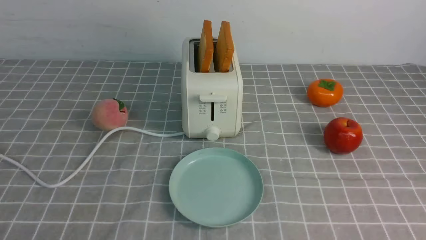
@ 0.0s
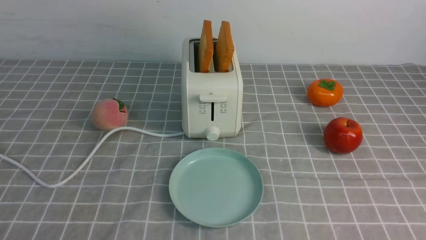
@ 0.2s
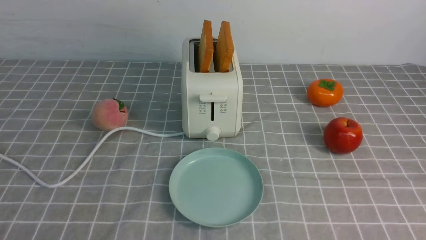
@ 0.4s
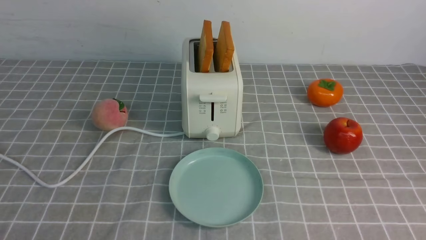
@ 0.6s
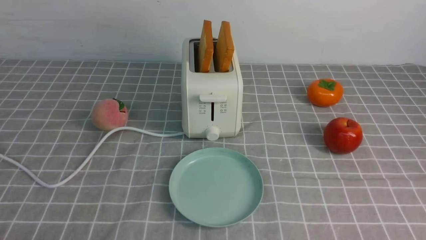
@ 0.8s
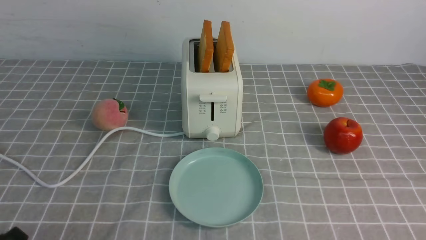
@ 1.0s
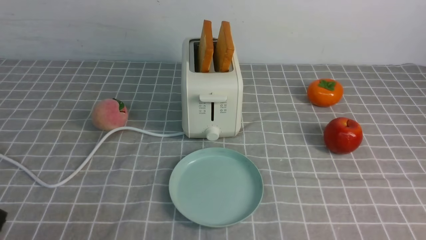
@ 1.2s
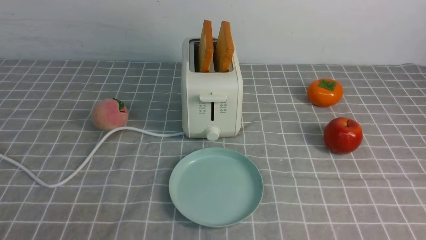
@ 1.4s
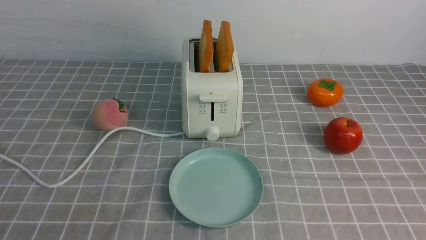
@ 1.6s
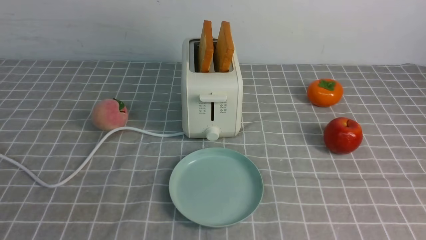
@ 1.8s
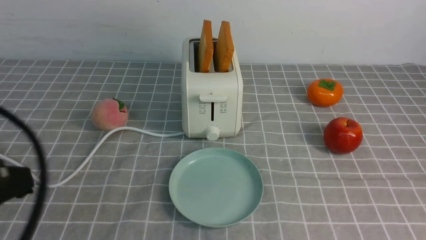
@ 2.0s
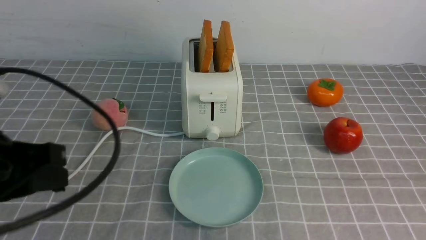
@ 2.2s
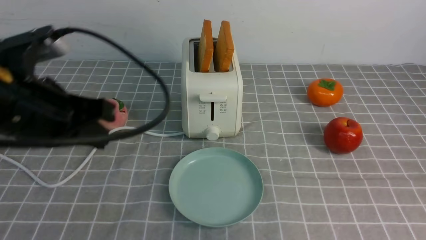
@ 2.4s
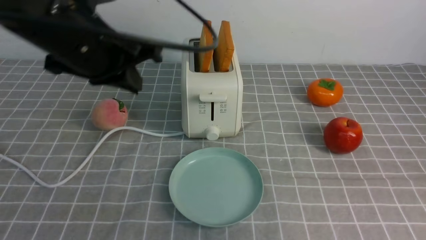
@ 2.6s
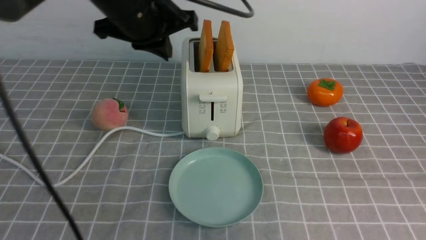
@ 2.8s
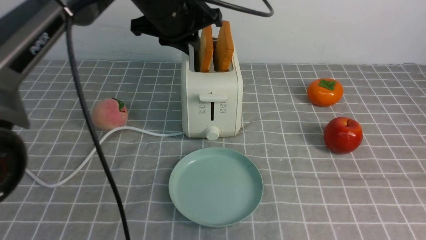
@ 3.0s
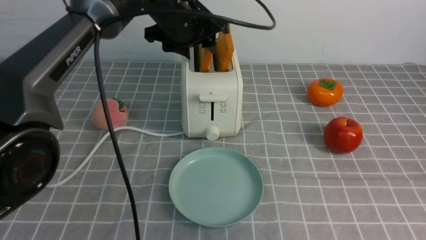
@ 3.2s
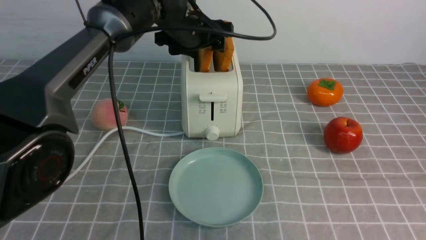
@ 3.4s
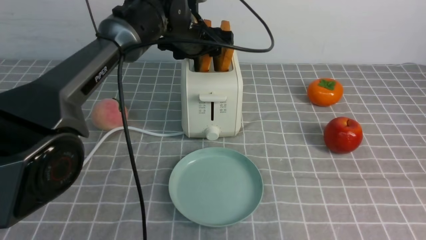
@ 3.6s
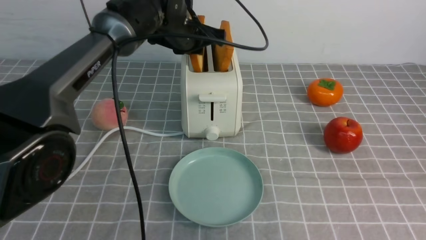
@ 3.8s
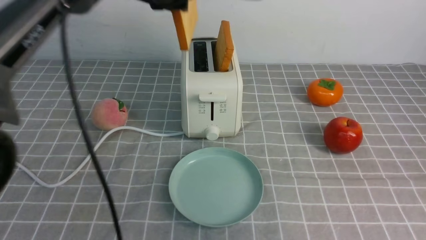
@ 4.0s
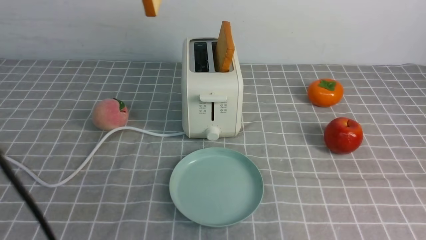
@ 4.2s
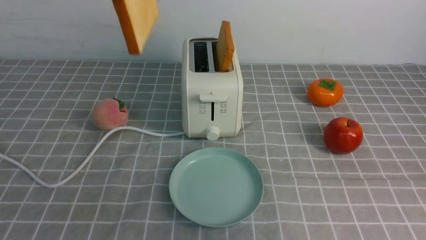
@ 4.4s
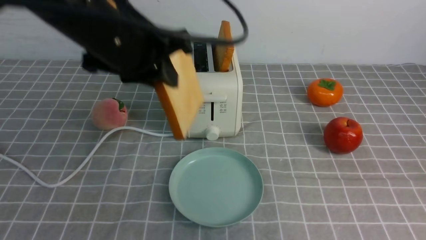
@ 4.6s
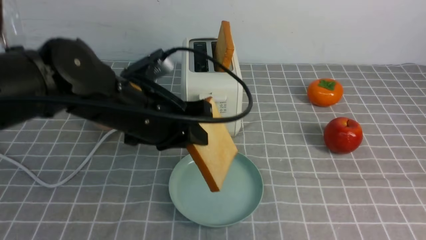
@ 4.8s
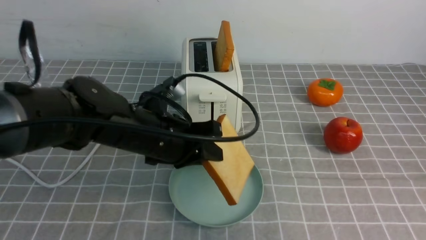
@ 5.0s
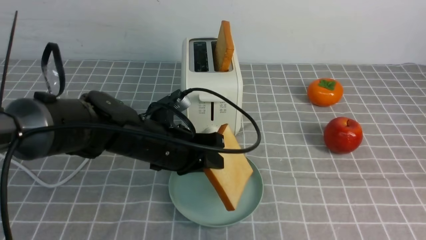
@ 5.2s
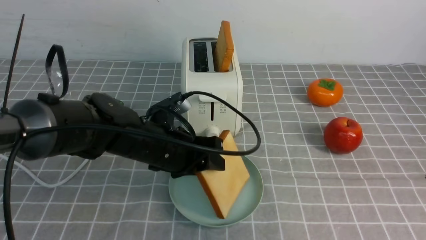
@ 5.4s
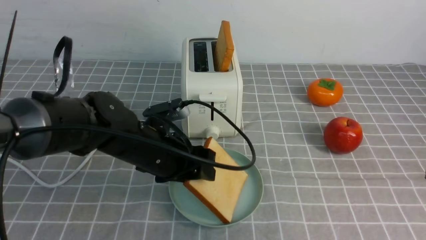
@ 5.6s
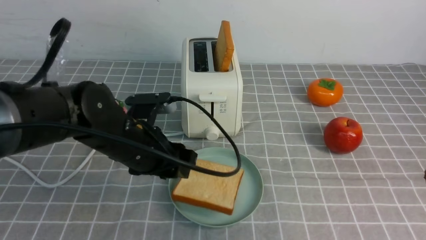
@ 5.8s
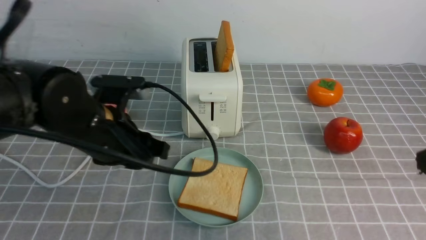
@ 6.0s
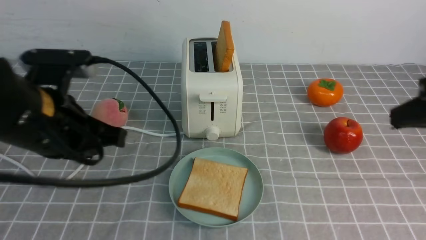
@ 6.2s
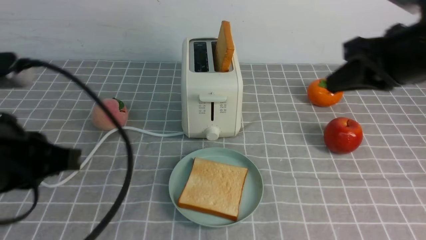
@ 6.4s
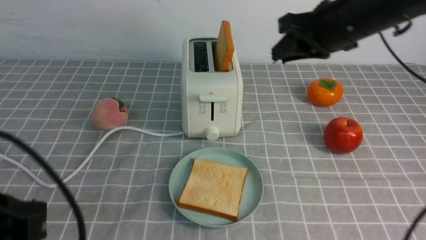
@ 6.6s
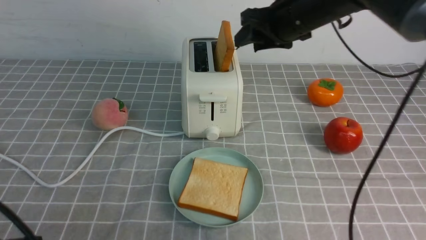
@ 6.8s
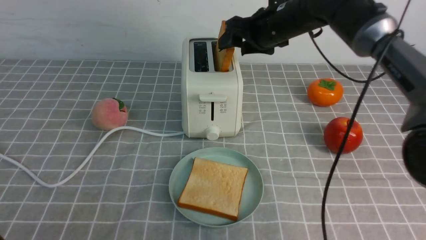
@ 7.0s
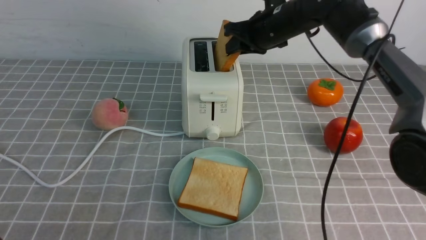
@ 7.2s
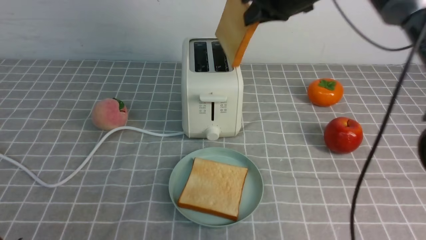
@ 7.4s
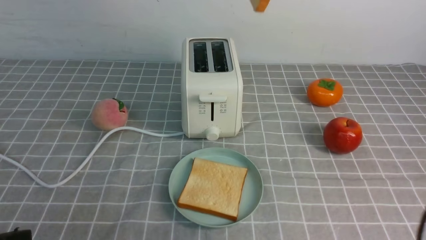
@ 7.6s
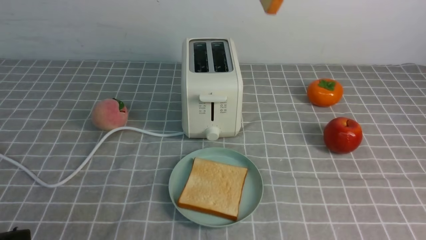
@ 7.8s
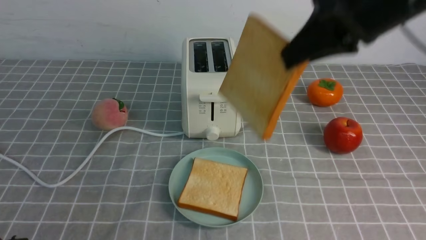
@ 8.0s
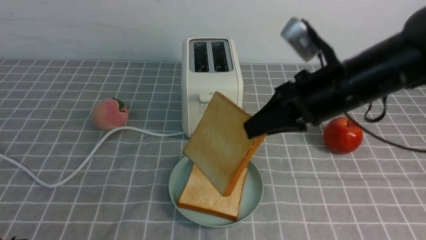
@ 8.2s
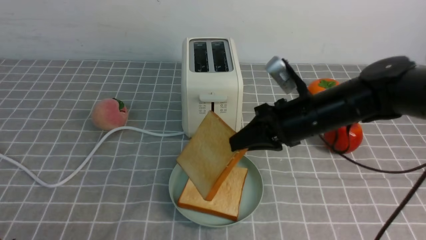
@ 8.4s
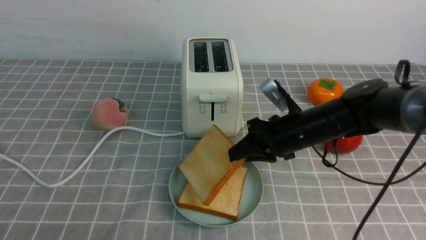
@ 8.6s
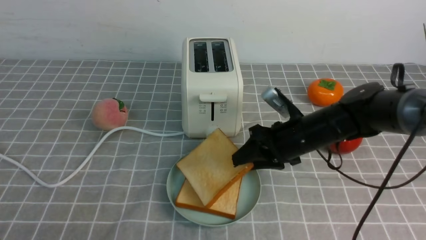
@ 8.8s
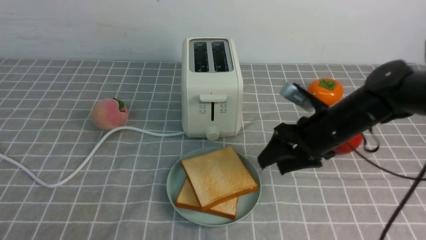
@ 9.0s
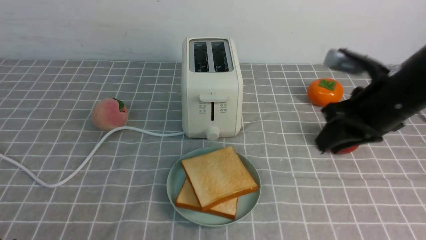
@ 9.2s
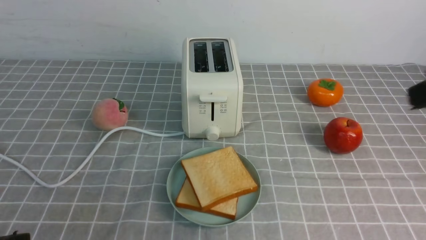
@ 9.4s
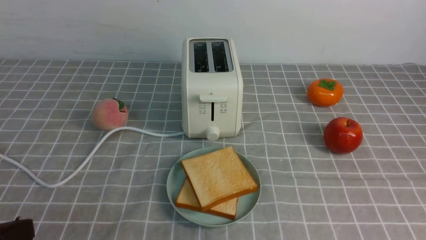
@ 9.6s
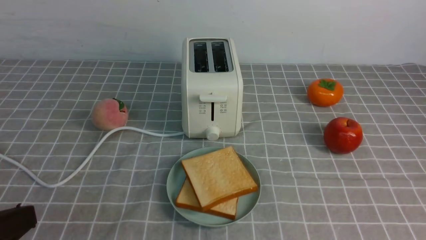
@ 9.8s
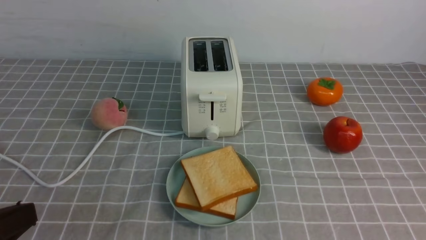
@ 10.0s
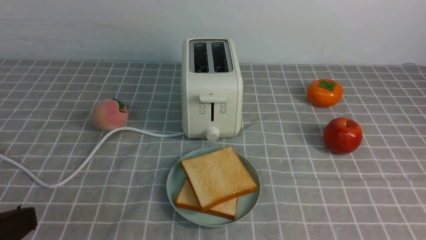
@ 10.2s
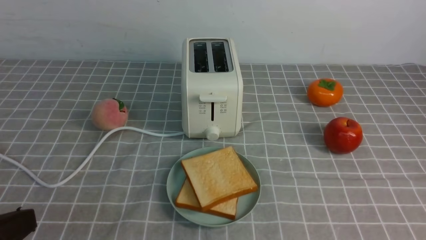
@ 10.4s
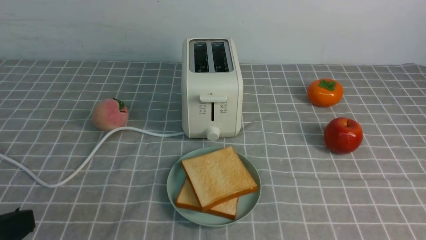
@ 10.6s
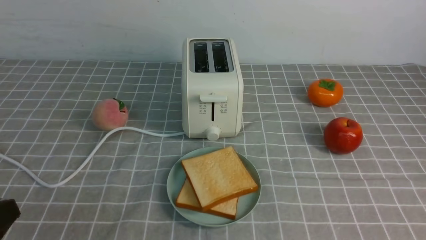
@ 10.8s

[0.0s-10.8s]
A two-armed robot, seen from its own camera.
Task of the whole recording: take toasted bread from bread machine on grey coffee table place on plate.
Step, 0.0s to 3.8s: use the left arm to take out a slice of bread.
Step, 4.0s to 6.2s: use the left arm to put a slice of bread into the empty plate.
Step, 6.4s to 8.0s: use the right arm to take out a slice of bread.
Step, 8.2s to 9.6s: use the right arm to put a slice of bread into the plate.
1.6s to 3.0s: The right gripper moves forward and upward, some 10 cm, and closes its fingers. The left gripper shifts roughly 40 cm forward and to the right, and opens.
3.0s to 4.6s: The left gripper travels backward by some 10 cm, and opens, then closes once more.
4.6s to 6.2s: The left gripper travels backward and to the left by some 10 cm, goes downward and returns, about 15 cm each way, and opens, then closes once more; the right gripper heads forward, covering some 5 cm.
6.2s to 7.8s: The left gripper travels backward by some 15 cm. Meanwhile the right gripper goes some 15 cm forward, upward and to the left, and opens, then closes once more.
7.8s to 9.2s: The right gripper goes roughly 15 cm downward, and opens.
9.2s to 10.8s: The right gripper is displaced backward by approximately 25 cm, and closes its fingers.

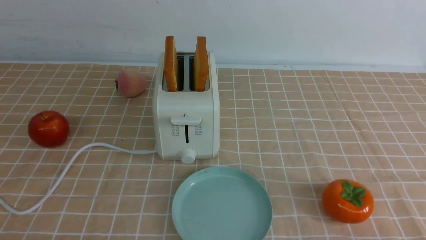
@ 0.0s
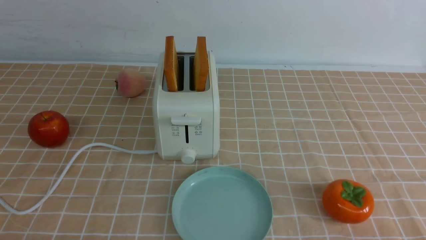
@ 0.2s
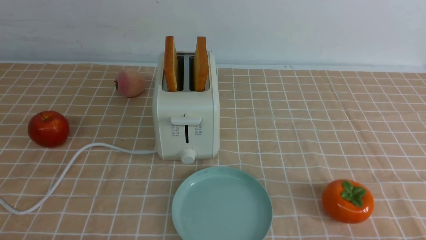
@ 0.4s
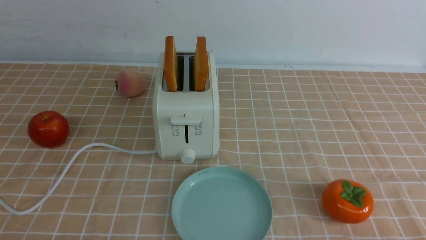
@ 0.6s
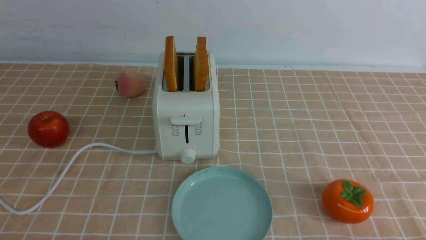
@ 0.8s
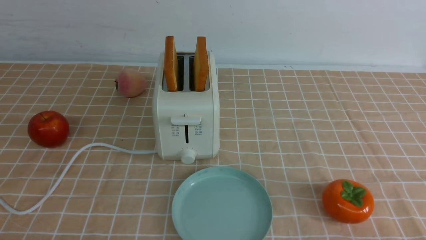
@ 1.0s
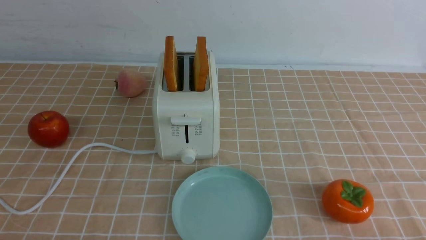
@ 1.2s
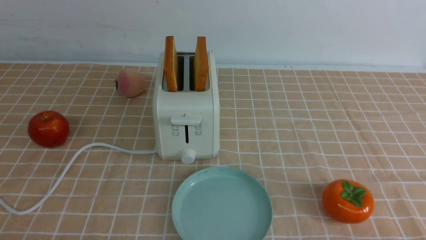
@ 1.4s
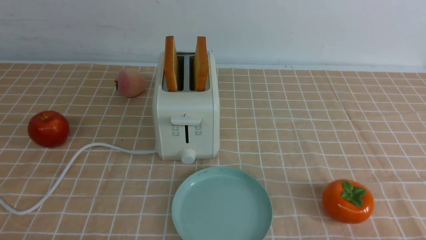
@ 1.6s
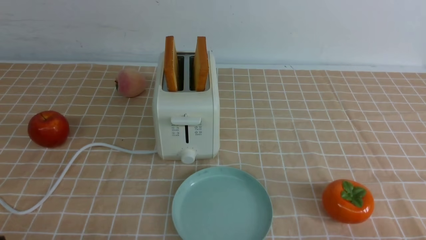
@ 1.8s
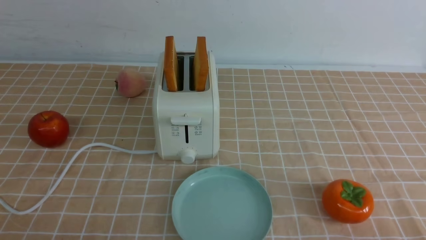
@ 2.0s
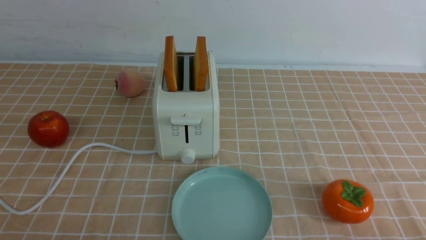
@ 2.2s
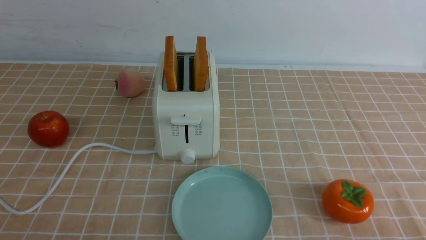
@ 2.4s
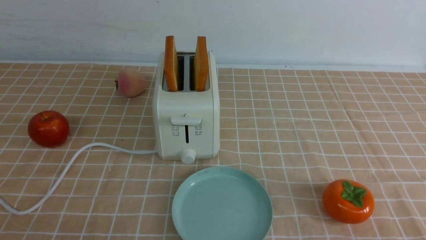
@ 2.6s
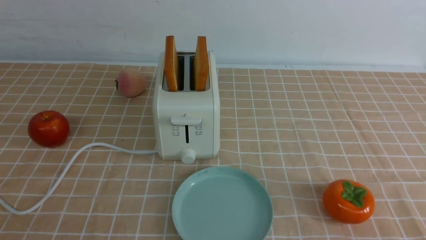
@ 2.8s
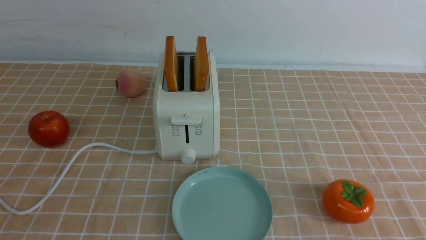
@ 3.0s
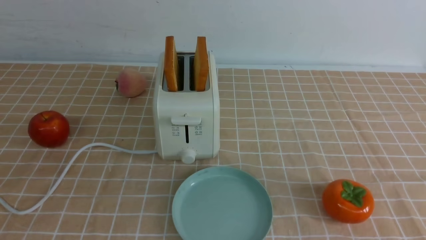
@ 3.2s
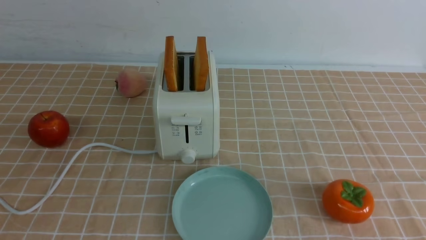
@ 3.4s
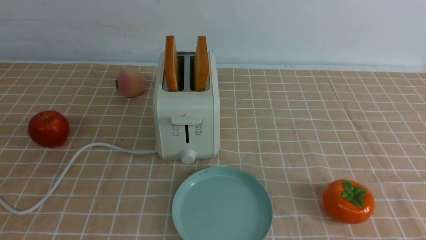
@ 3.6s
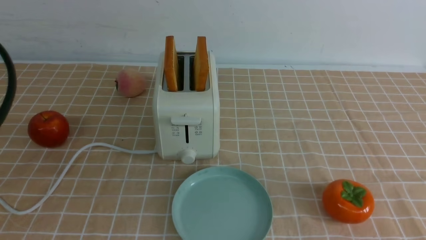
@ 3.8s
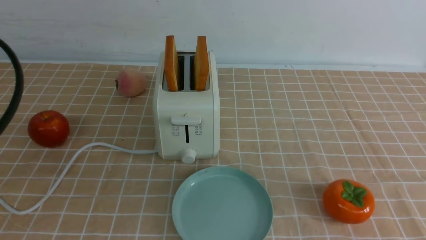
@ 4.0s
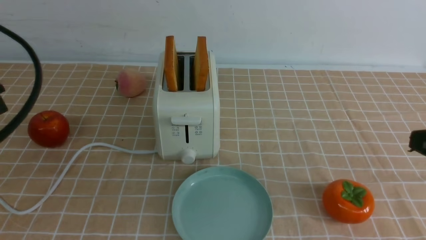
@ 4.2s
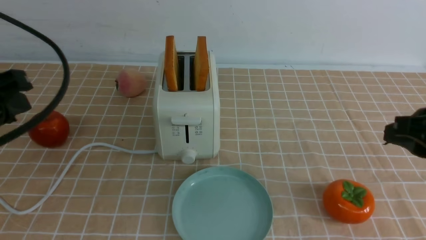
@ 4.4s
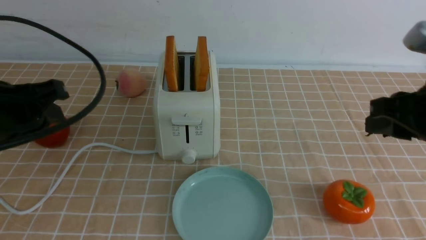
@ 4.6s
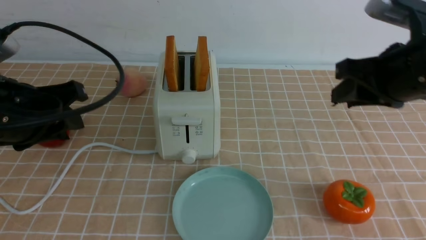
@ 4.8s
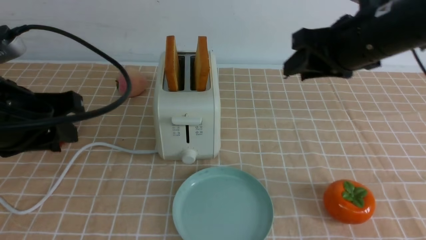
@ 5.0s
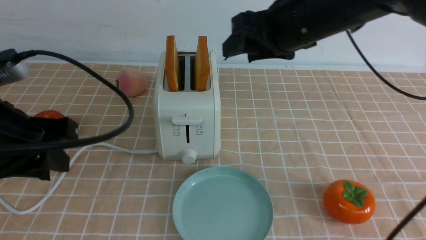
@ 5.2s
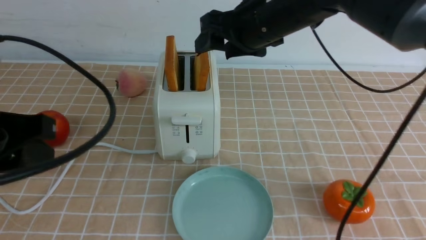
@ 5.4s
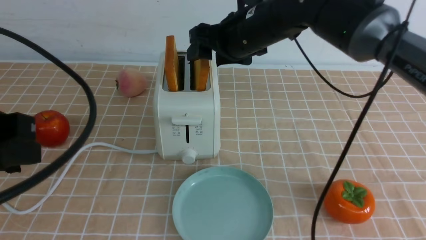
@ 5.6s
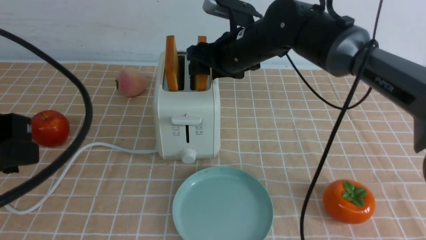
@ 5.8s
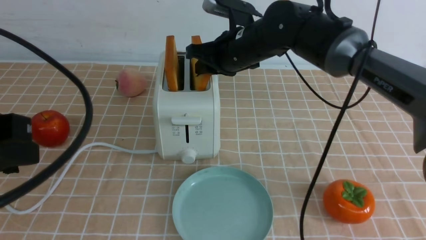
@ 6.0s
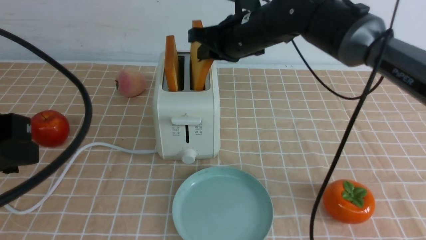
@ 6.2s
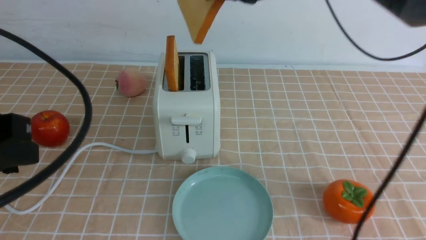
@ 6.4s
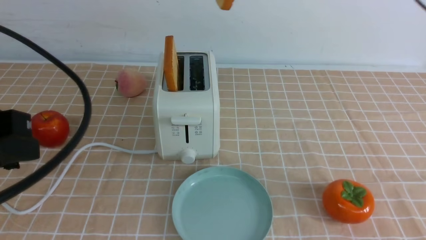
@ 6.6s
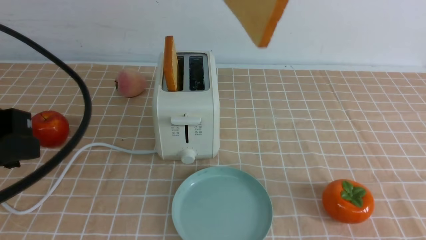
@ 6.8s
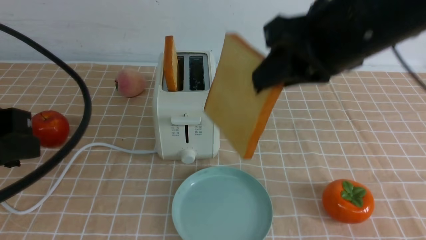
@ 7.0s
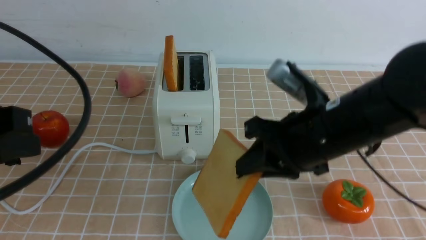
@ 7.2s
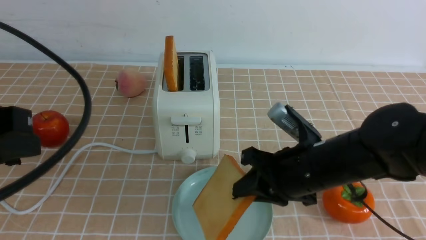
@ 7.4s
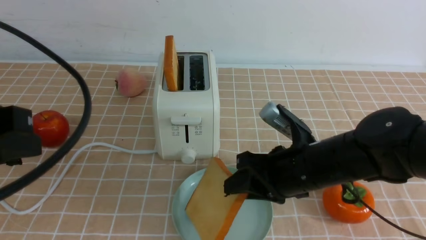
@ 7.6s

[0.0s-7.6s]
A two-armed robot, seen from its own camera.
Task of the whole recording: take toasted bread from bread machine on light coffee tablecloth place on plate.
Step, 0.0s to 6.2s: use the right arm to take out a slice of bread.
3.0s to 4.6s: The grippers both shift forward by roughly 20 cm.
4.6s to 6.0s: The right gripper goes some 25 cm forward and to the left, and opens, then closes again. The left gripper heads backward, covering some 5 cm.
6.0s to 7.6s: The right gripper travels backward by some 15 cm, and goes upward and returns, approximately 20 cm each way.
